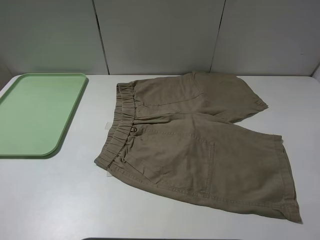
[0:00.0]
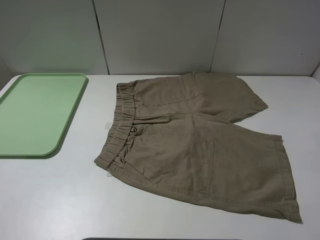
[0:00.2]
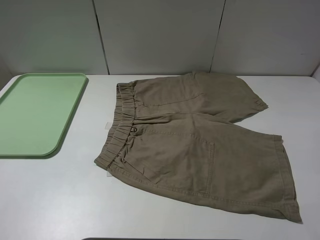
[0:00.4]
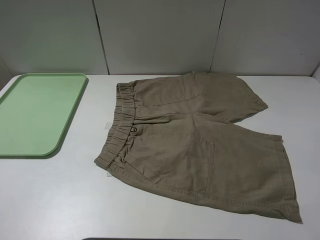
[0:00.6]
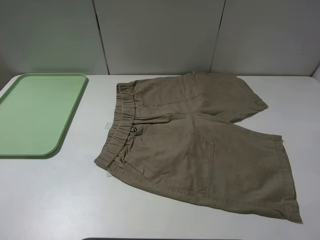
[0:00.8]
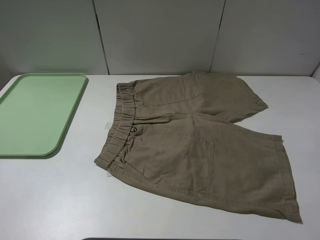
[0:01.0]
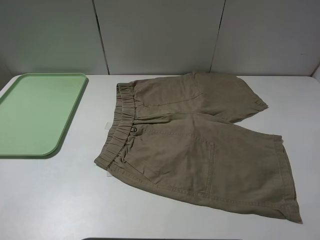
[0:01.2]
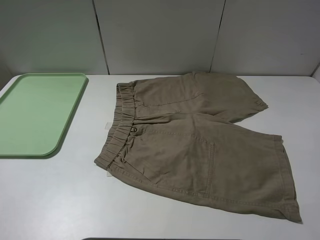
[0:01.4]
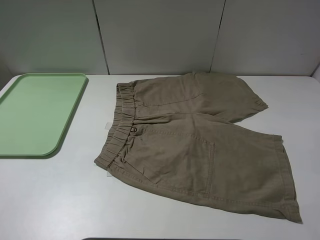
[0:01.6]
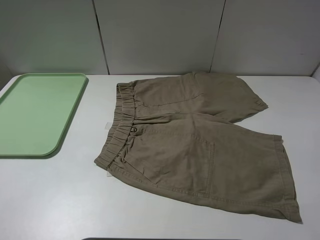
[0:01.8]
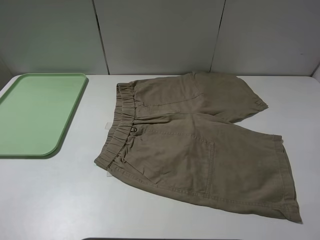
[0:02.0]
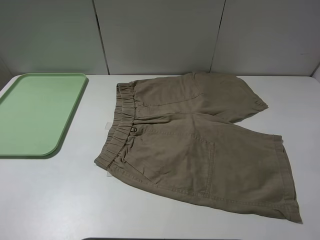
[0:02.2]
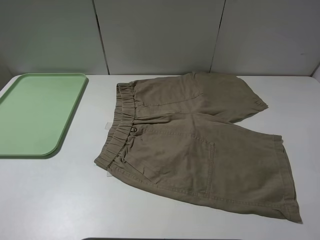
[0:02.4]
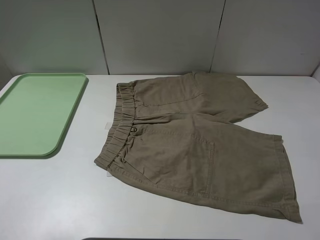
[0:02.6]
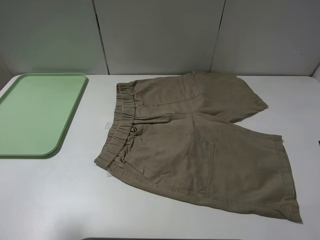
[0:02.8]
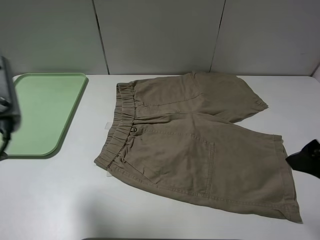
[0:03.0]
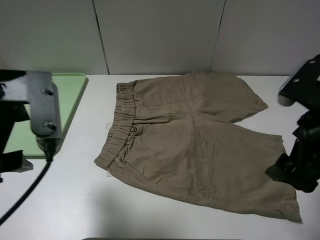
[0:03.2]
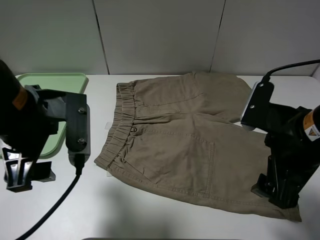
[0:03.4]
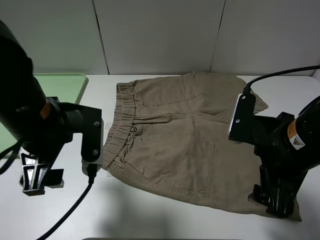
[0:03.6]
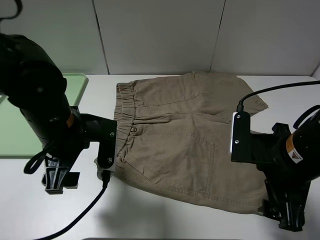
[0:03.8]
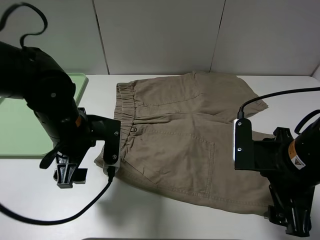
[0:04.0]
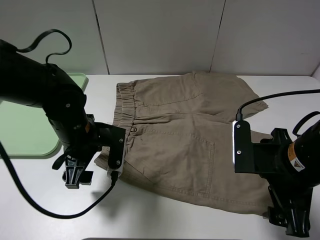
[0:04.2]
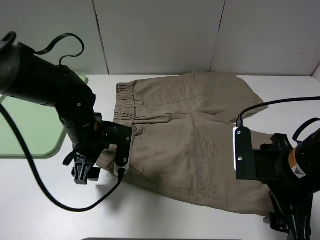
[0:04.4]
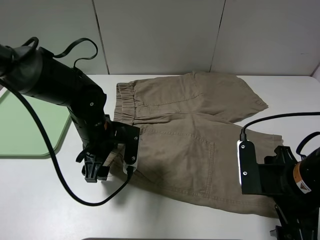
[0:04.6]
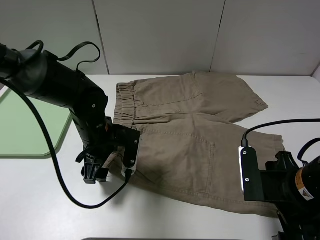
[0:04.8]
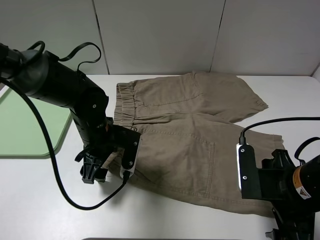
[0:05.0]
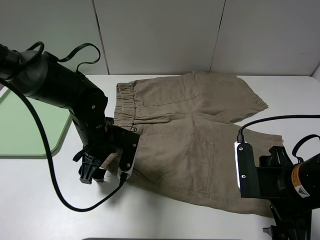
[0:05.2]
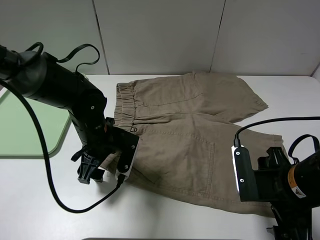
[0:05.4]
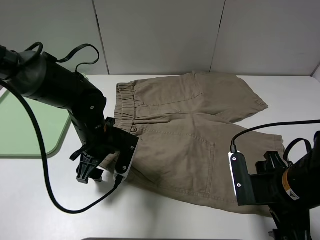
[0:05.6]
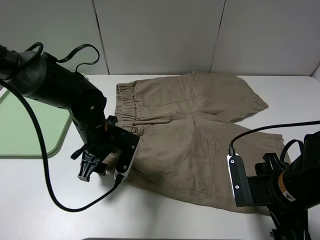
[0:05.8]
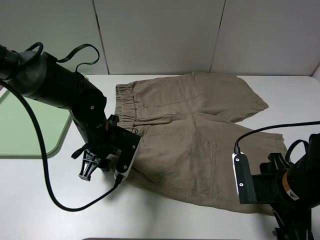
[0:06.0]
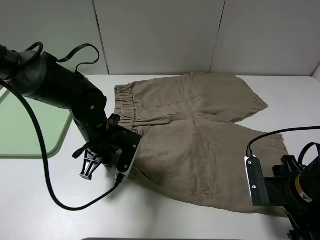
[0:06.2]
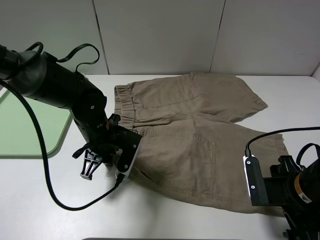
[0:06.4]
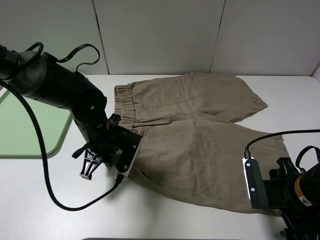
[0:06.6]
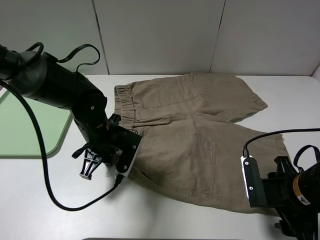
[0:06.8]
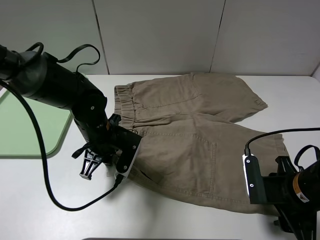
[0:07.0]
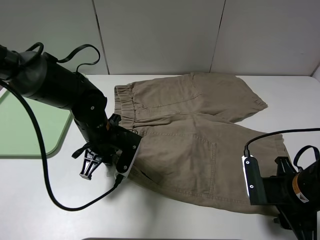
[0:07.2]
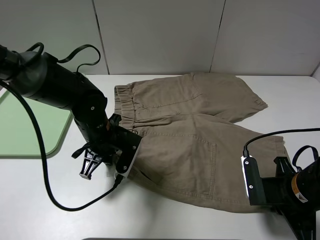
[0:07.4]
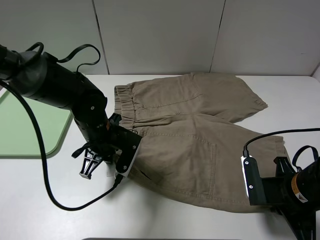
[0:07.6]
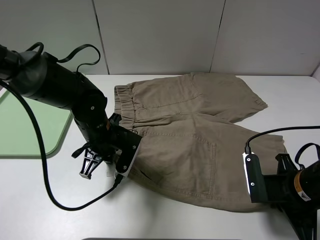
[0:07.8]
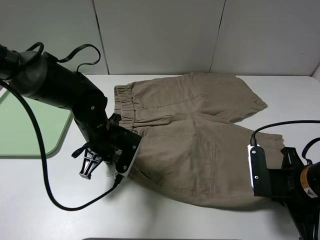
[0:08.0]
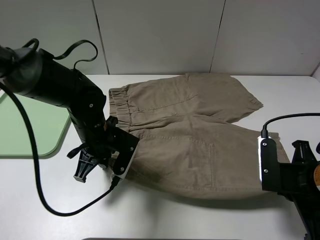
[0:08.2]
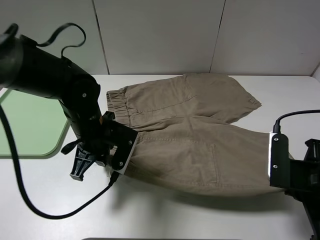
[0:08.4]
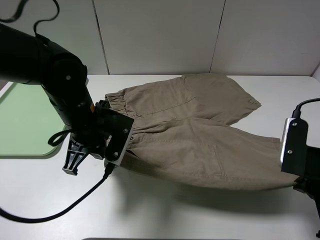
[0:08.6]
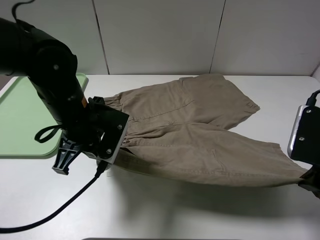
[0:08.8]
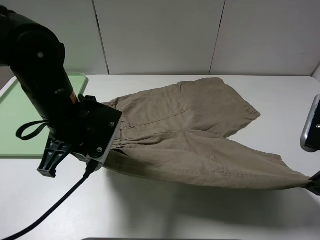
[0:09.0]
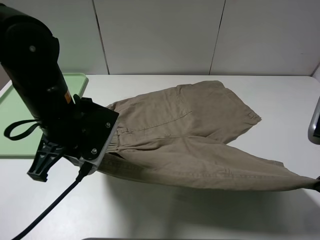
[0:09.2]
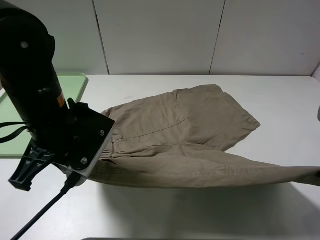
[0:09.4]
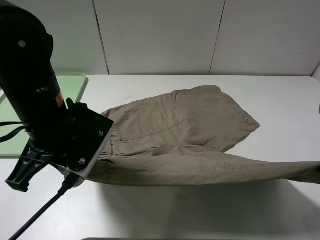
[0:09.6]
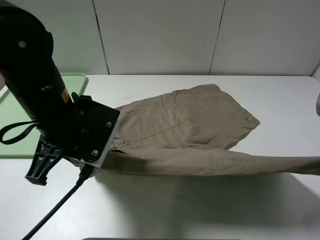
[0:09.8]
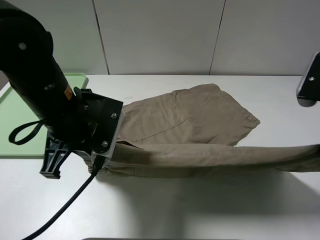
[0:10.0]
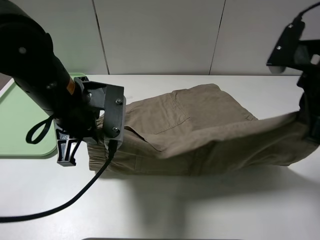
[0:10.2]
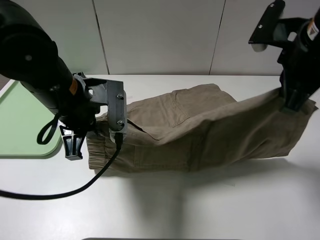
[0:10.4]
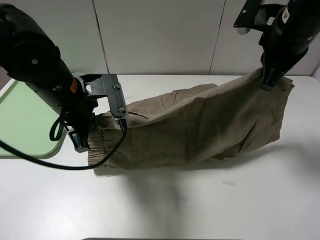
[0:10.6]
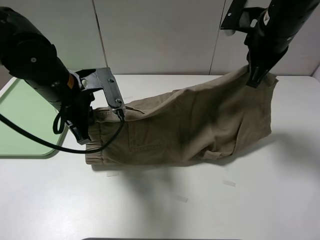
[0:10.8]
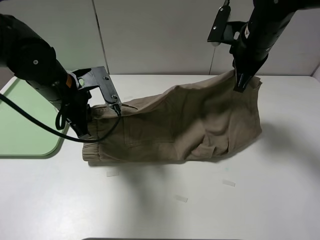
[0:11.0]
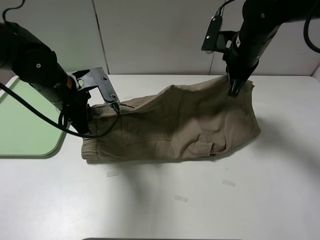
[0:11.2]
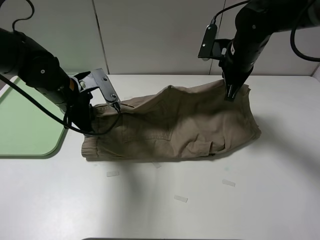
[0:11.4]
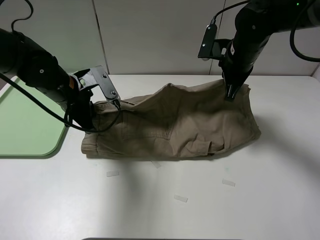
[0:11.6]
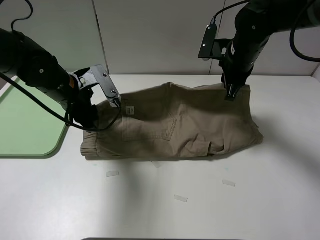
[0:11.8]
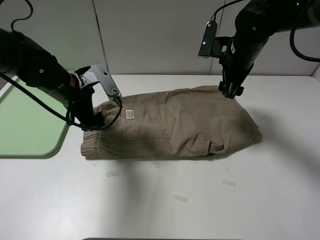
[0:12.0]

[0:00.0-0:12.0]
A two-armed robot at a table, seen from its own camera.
Task of the whole recording: fold the khaki jeans in half with two grippers, then fold them in half again, and use the left claw to place the folded fold khaki jeans on the tray.
Step, 0:00.0 to 0:06.4: Grasp the khaki trousers with the left gripper.
Step, 0:06.6 to 0:07.4: Grasp the khaki trousers with the right gripper.
Step, 0:07.6 to 0:12.0: Fold the khaki trousers upwards with the left gripper.
0:00.0 to 0:01.6: Neither gripper changes place.
0:01.6 to 0:03.0: The left gripper moves forward and to the right, about 20 cm; the right gripper shifts some 15 cm forward.
0:03.0 to 0:04.4: The right gripper moves downward and to the left, approximately 10 cm; the left gripper shifts roughly 25 cm downward, forward and to the right.
0:04.4 to 0:06.0: The left gripper closes up, while the right gripper goes roughly 5 cm downward.
0:06.0 to 0:07.6: The right gripper closes up.
0:07.6 to 0:09.0: The grippers both shift upward by about 10 cm.
0:09.0 to 0:10.4: The right gripper heads forward and upward, covering roughly 15 cm.
0:10.4 to 0:12.0: The left gripper shifts roughly 10 cm forward, and opens its fingers; the right gripper is displaced forward and downward by some 15 cm, and opens its fingers.

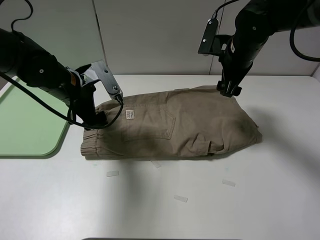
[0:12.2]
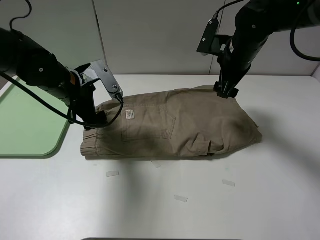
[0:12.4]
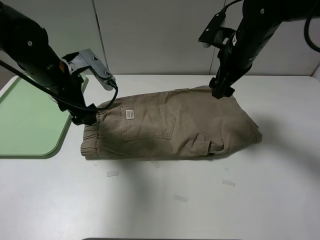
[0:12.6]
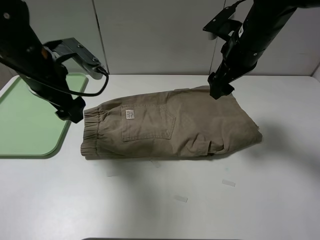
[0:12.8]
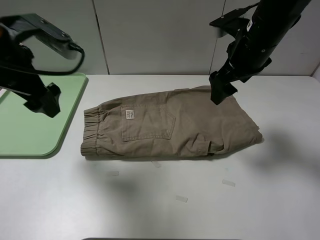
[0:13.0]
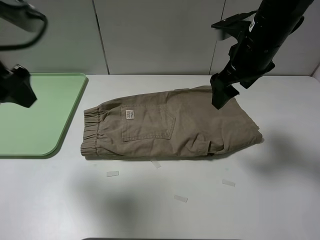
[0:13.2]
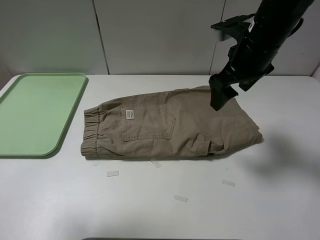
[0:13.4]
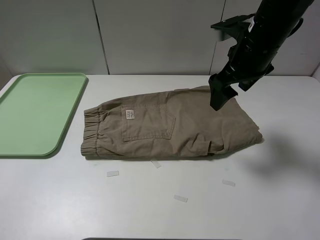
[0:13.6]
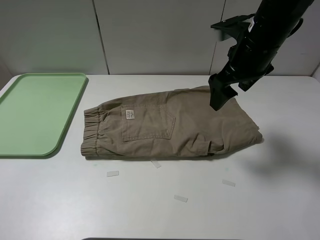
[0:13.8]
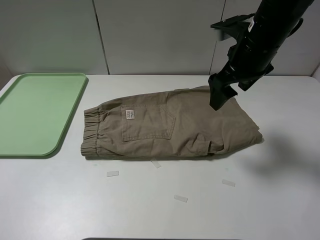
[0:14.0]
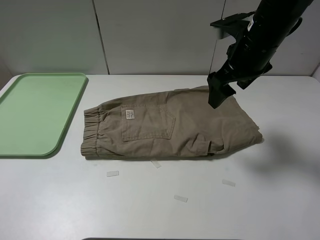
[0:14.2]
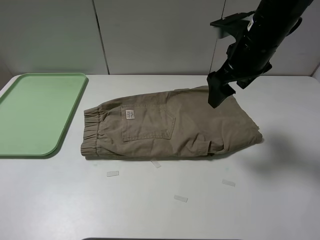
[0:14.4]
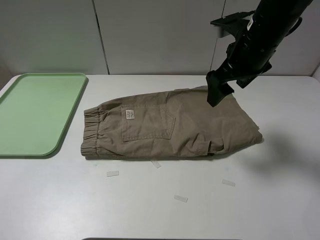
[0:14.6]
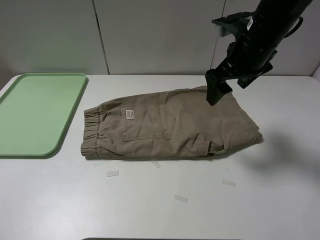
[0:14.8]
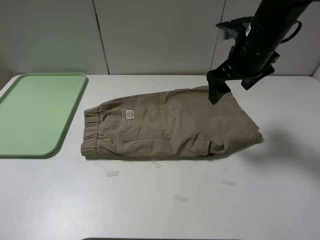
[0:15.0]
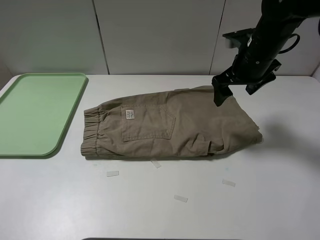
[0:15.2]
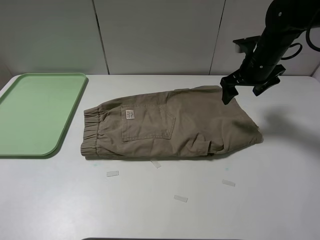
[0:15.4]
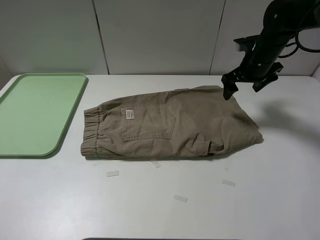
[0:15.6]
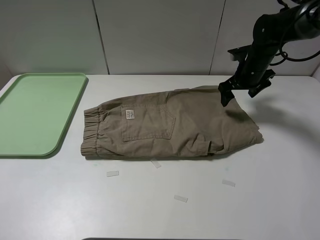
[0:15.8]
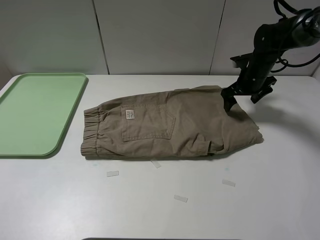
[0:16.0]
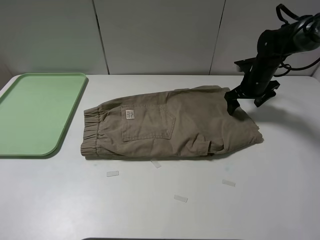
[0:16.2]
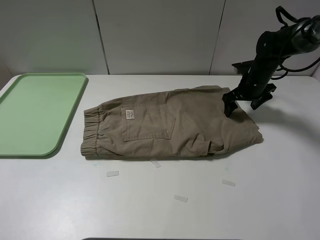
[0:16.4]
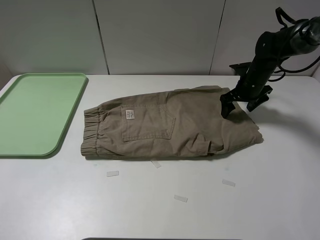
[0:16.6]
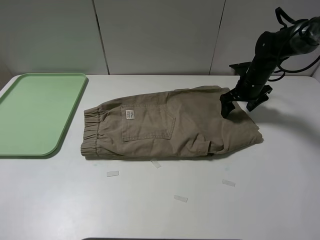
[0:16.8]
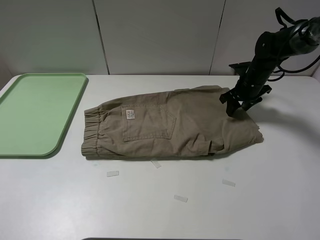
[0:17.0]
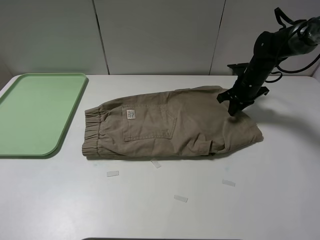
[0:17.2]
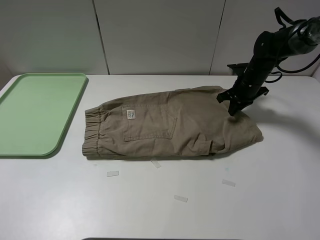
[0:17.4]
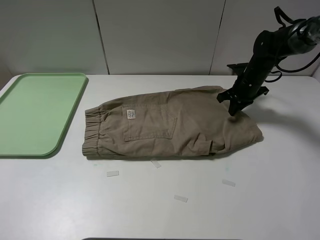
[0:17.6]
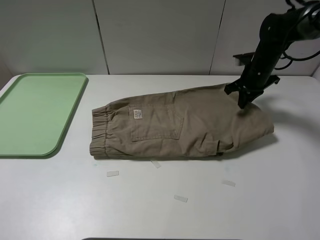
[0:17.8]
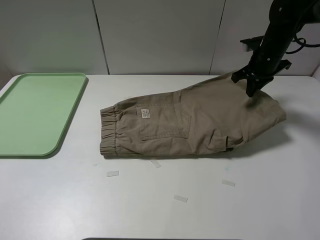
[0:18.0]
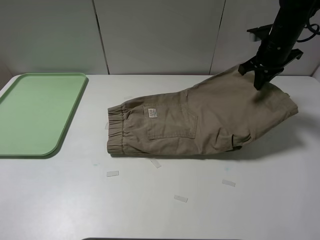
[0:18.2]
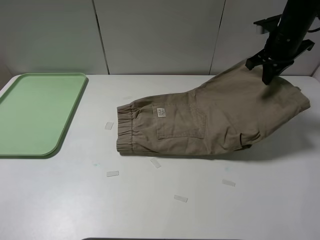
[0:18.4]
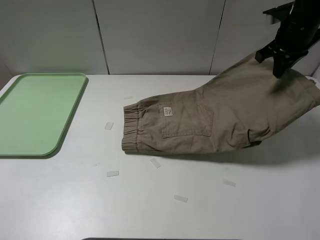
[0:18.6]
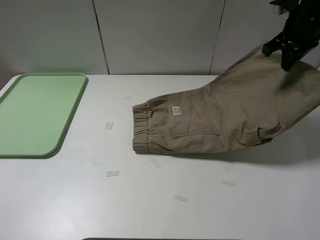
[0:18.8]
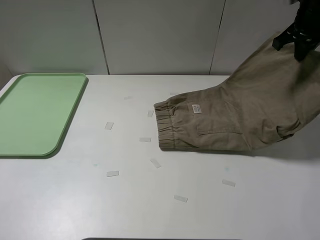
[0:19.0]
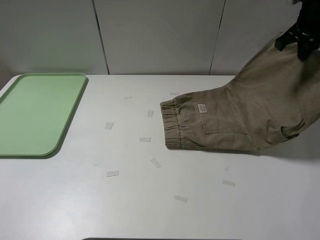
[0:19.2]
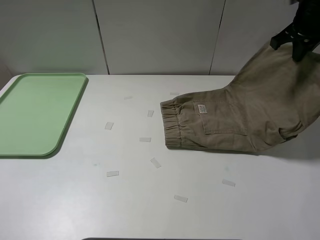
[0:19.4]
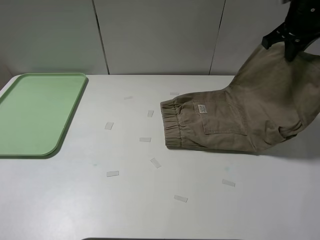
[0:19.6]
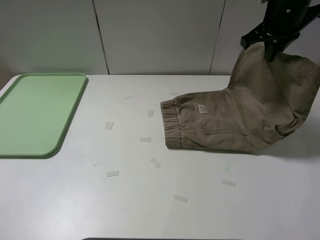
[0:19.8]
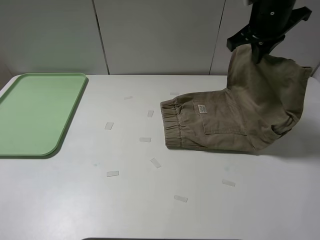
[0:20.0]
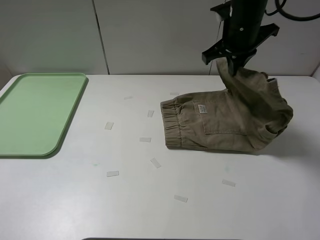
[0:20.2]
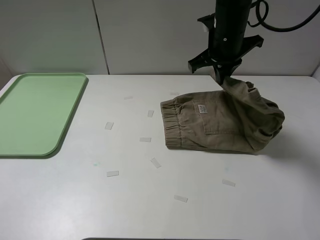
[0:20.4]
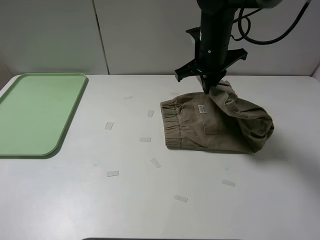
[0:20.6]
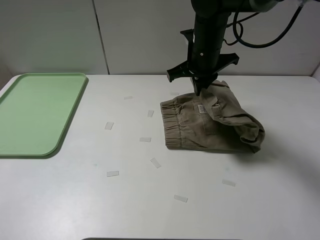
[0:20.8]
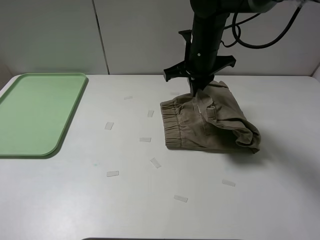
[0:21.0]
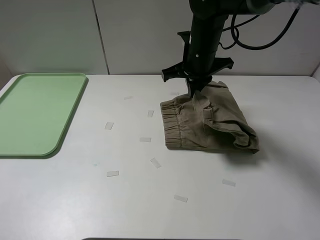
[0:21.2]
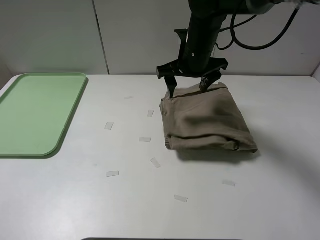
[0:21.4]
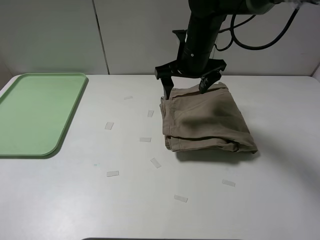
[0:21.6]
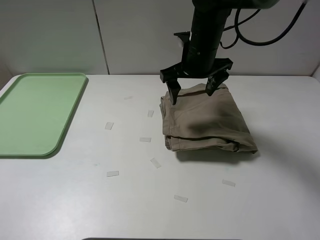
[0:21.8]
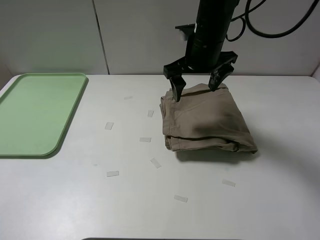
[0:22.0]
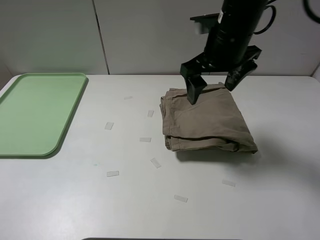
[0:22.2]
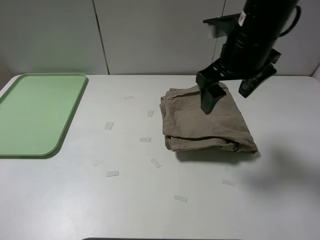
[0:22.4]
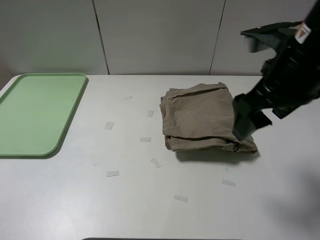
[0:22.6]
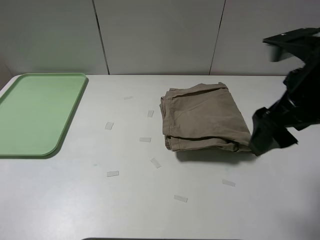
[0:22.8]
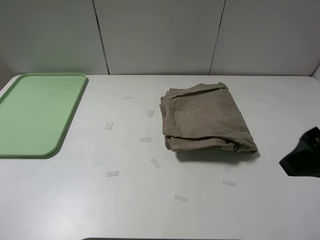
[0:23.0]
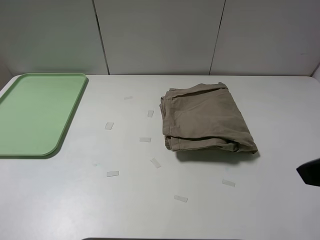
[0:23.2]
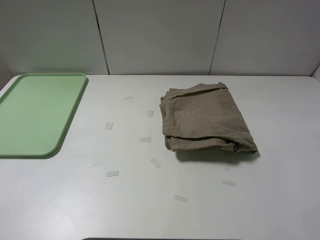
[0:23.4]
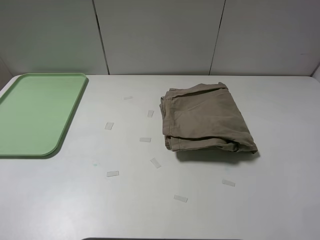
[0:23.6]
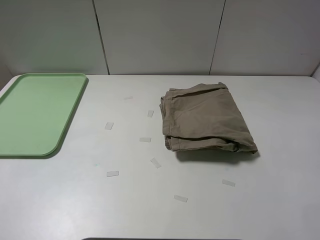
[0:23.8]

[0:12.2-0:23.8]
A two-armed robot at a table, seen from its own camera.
Task of the whole recording: fold the khaki jeans in half with two grippers, then fold them in half again, and use the left claw to place the folded fold khaki jeans on the tray.
Step, 0:12.2 to 0:17.2: Grasp the khaki trousers with the right gripper.
Step, 0:17.4 to 0:21.4: Fold the khaki trousers from right to left with the right gripper.
0:12.2 to 0:13.6: The right gripper heads backward, covering roughly 5 cm. Meanwhile the left gripper moves backward, upward and to the left, approximately 35 cm.
0:15.0 to 0:16.6: The right gripper moves downward, forward and to the right, roughly 20 cm.
0:16.6 to 0:18.0: The right gripper heads upward, covering approximately 10 cm, and closes its fingers.
0:18.0 to 0:19.4: The right gripper heads upward, covering some 10 cm.
0:19.4 to 0:21.0: The right gripper moves to the left and downward, some 20 cm.
0:21.0 to 0:22.4: The right gripper goes some 15 cm backward, upward and to the right, and opens up.
0:22.4 to 0:23.8: The right gripper is displaced backward and to the right by roughly 30 cm.
